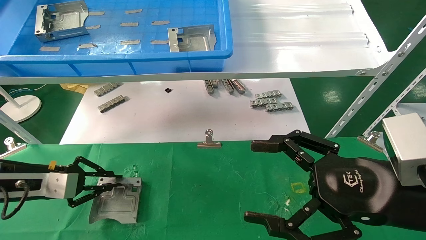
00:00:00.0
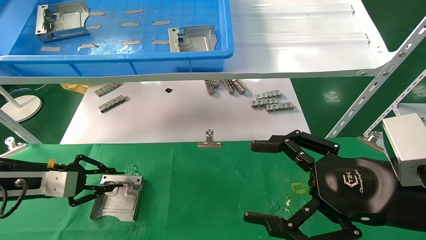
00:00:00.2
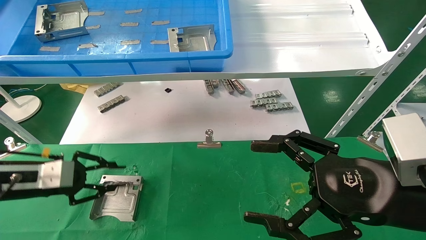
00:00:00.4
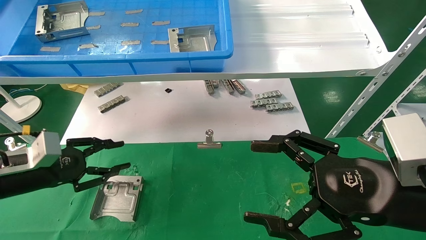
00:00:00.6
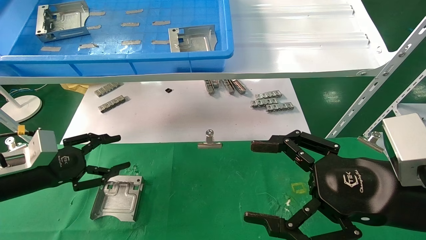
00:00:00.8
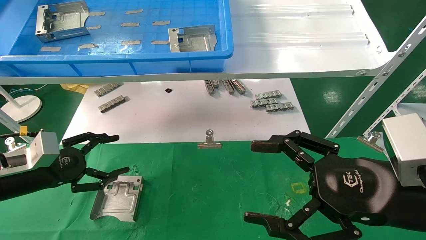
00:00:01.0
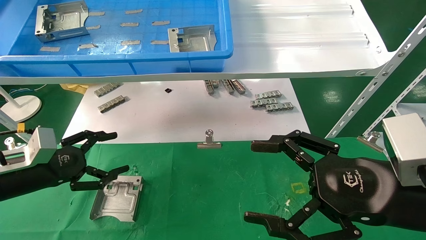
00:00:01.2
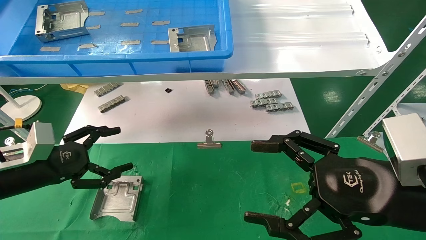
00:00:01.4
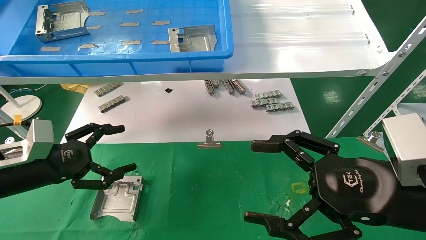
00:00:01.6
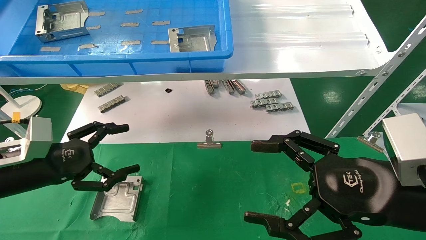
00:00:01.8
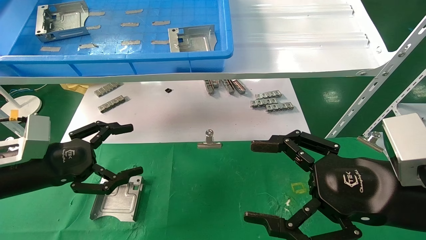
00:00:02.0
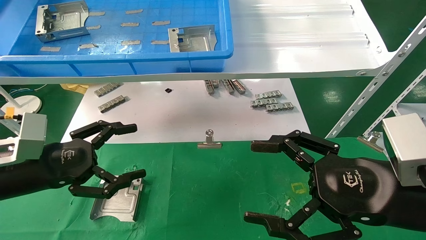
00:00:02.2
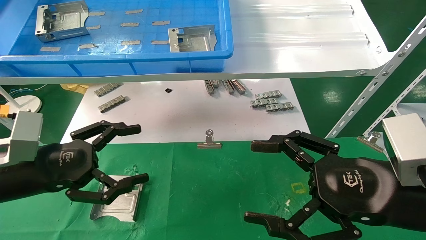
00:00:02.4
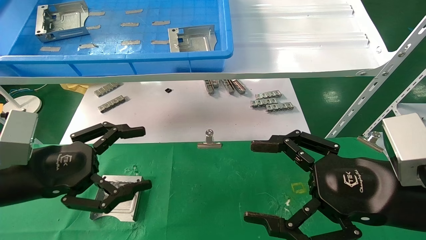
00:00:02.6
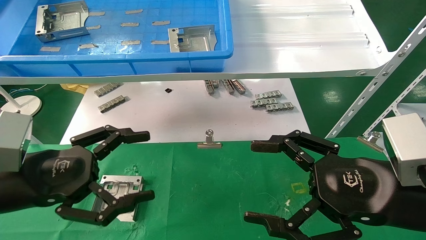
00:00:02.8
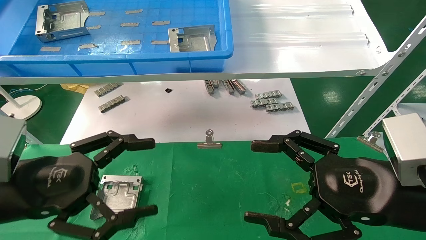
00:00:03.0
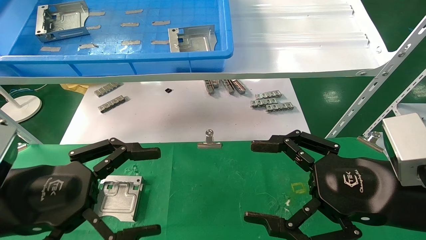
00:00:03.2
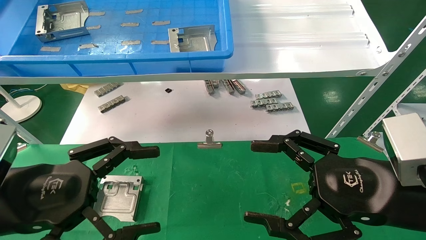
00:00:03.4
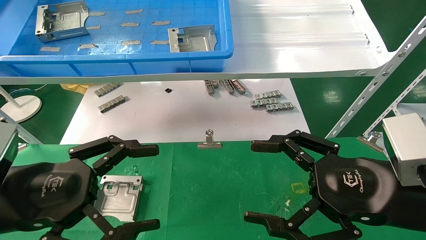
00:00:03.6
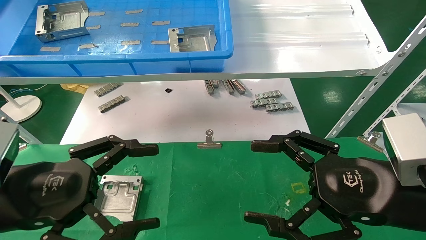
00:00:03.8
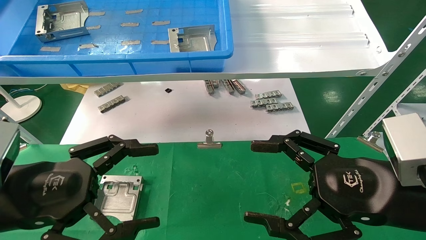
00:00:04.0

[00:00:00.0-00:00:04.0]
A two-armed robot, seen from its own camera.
Task of the whole recording: use the mechanical arm to pick up the parts and place them on the table.
00:00:00.0 to 00:00:01.4: The left gripper opens up.
00:00:01.4 to 00:00:02.6: The left gripper travels backward and to the right by approximately 10 cm.
00:00:02.6 to 00:00:04.0: The left gripper travels backward by approximately 5 cm.

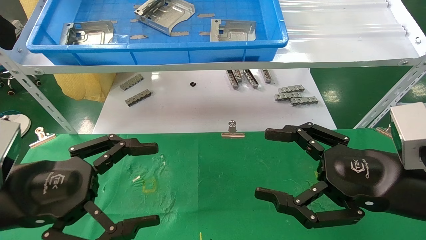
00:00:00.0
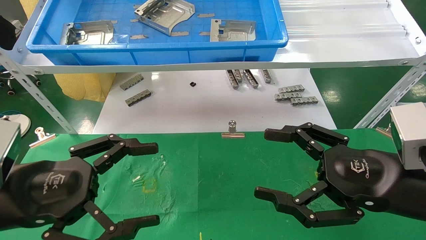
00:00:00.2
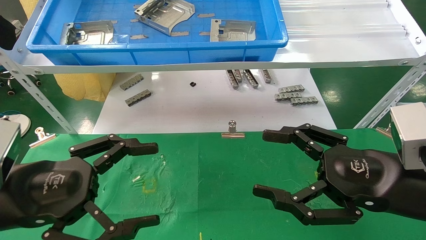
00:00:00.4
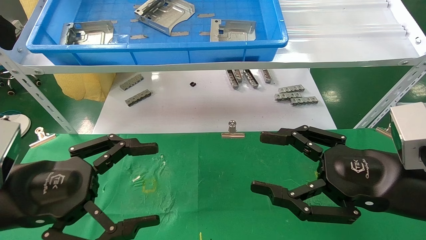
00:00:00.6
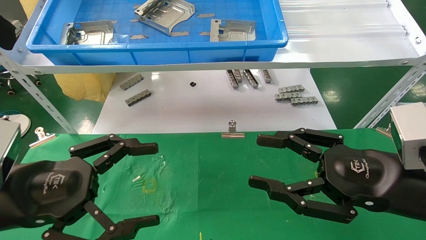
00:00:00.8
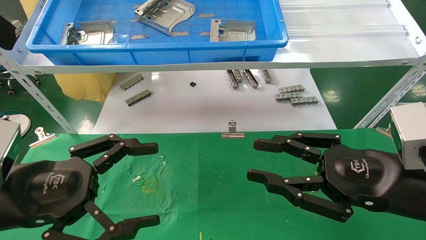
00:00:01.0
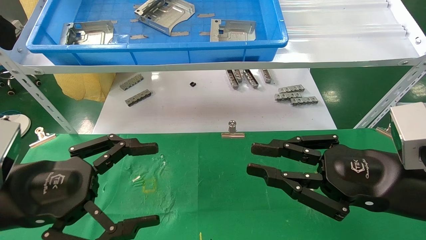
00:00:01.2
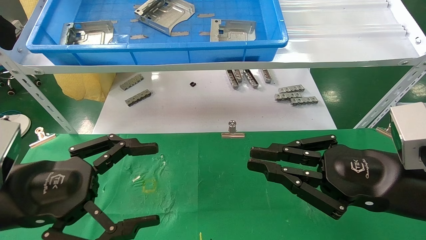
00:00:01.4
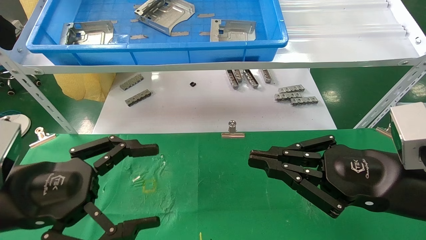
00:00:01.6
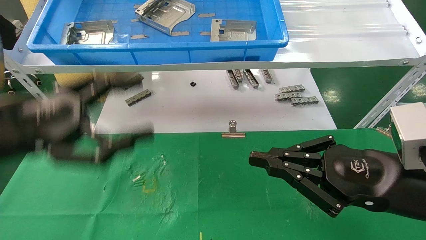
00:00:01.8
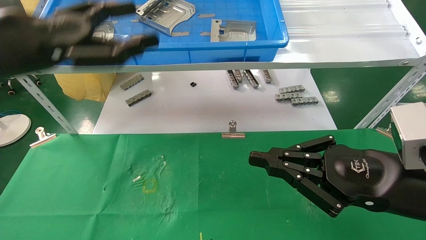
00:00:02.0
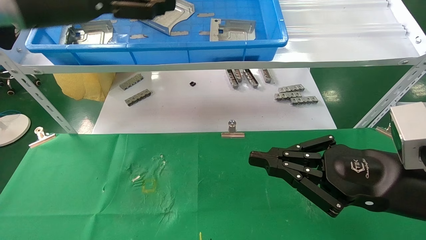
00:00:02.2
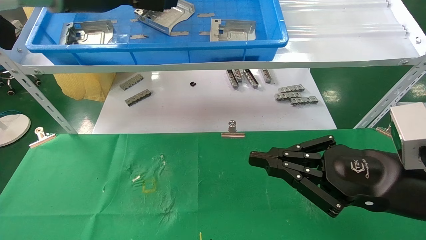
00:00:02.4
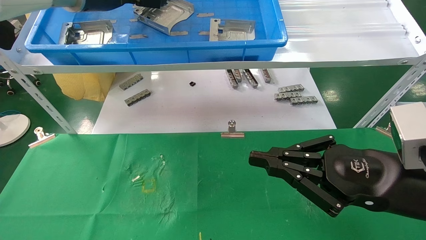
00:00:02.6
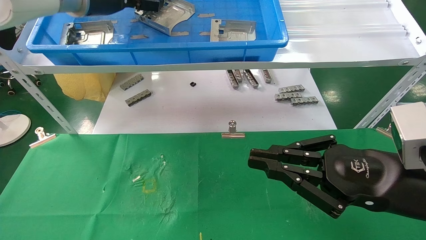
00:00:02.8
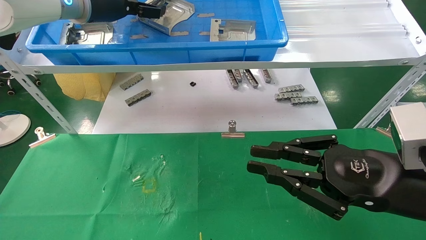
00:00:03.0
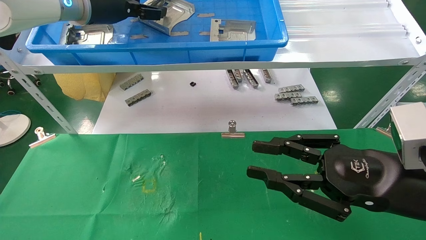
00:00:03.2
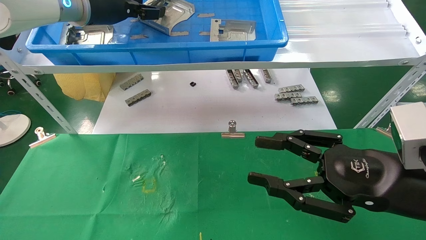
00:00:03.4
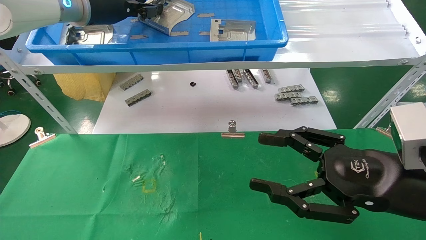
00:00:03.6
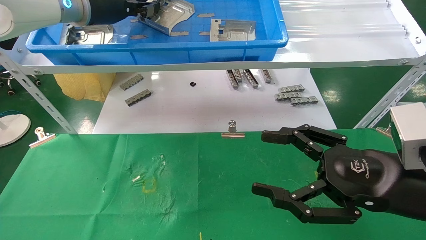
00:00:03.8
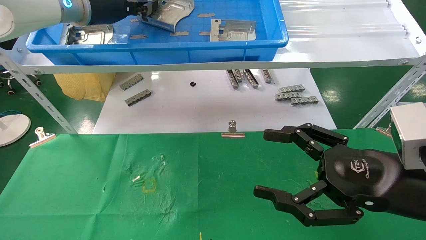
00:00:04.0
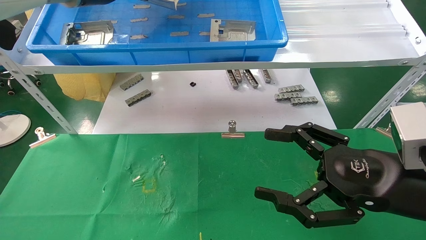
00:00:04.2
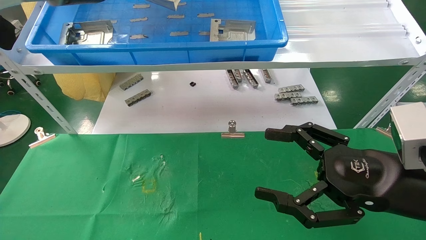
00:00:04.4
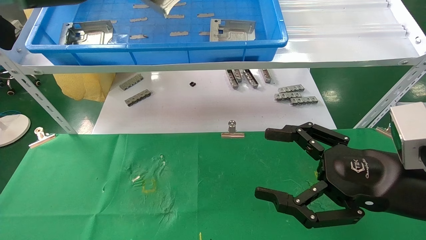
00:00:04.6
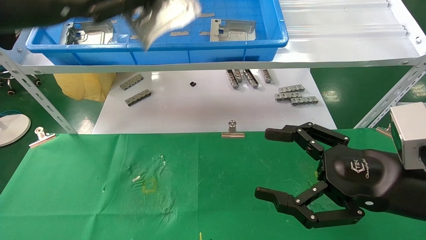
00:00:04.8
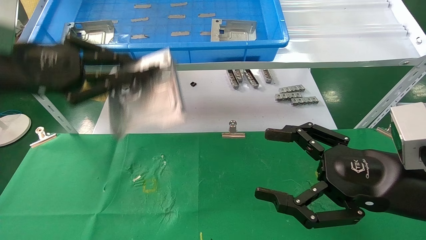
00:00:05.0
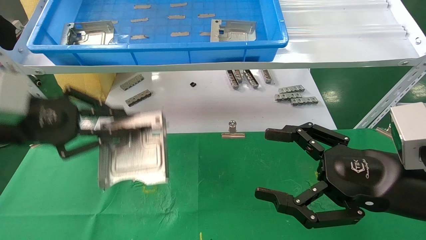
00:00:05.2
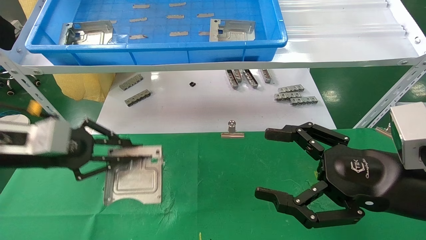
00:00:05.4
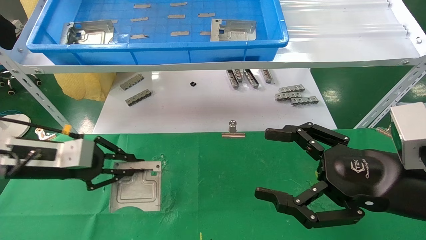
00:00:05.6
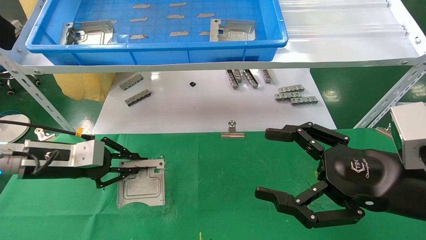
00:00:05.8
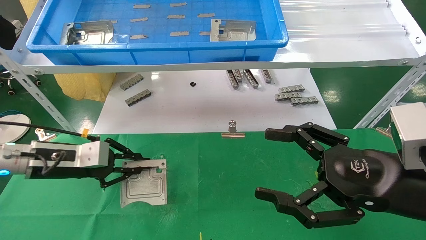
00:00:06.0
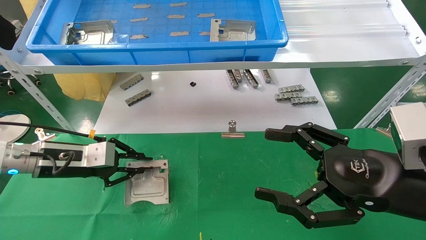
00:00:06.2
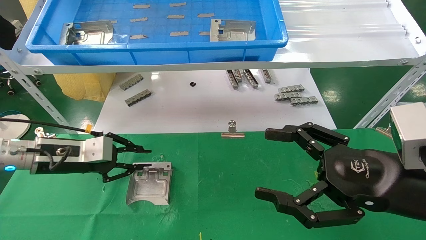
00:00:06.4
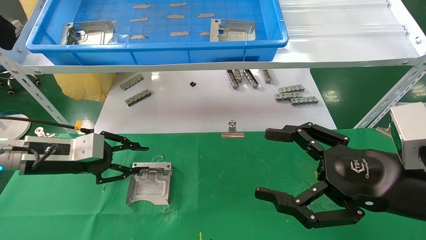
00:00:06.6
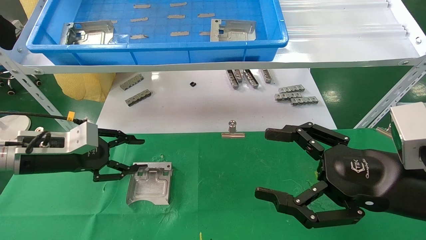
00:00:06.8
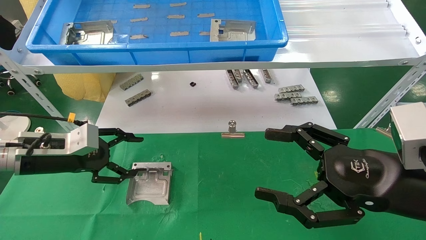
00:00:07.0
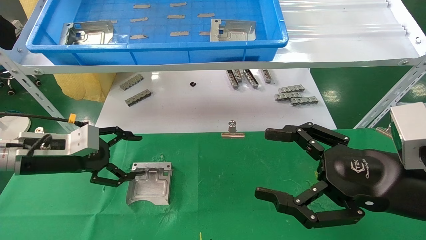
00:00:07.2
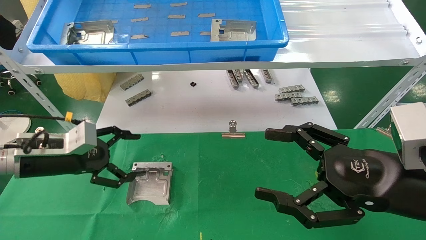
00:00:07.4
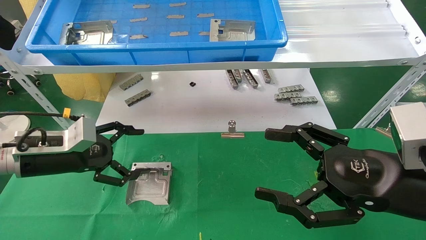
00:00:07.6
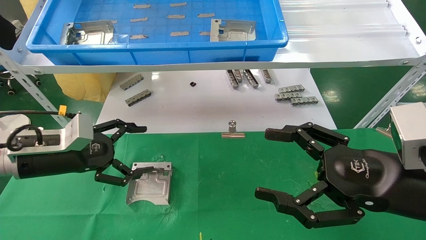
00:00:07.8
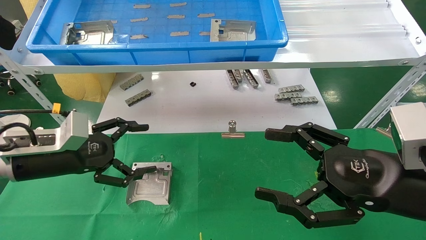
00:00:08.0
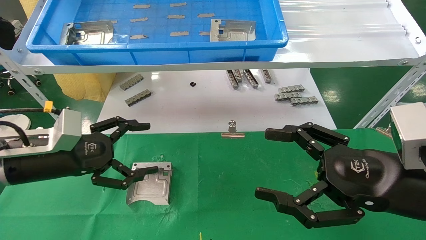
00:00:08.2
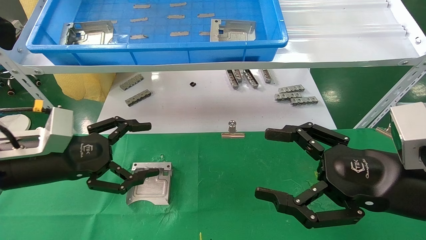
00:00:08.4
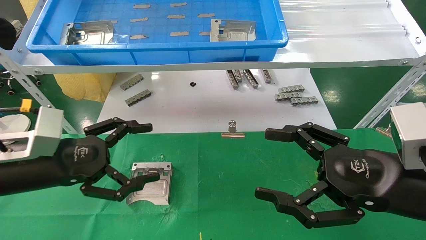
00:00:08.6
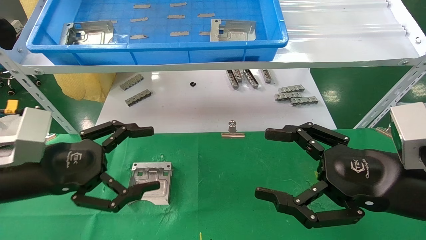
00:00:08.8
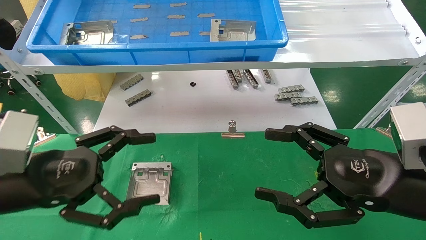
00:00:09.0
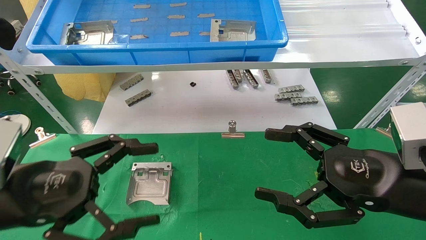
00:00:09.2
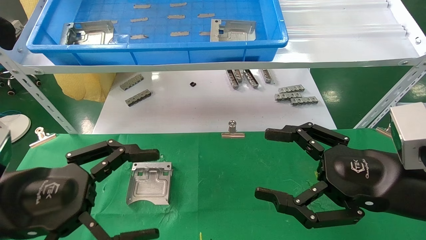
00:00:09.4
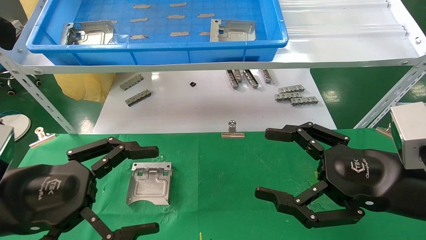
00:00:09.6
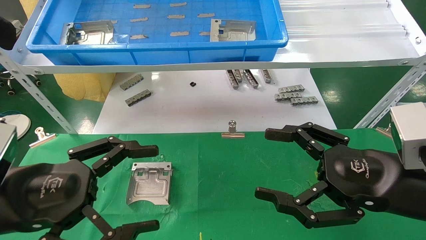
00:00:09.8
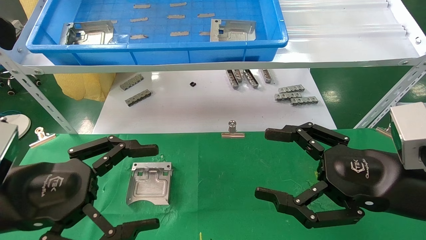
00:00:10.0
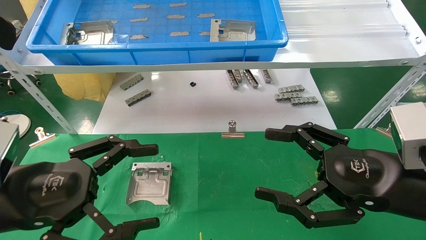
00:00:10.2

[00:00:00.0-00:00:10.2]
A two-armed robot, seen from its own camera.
Task of the whole recording: use the mechanical arm to pick up the parts and place them on the table.
Step, 00:00:01.8 to 00:00:03.8: Pick up the hard drive bracket from the feeding area.
Step, 00:00:04.0 to 00:00:06.8: Place the hard drive bracket into the box.
00:00:00.0 to 00:00:01.4: The right gripper closes its fingers.
00:00:01.4 to 00:00:03.0: The left gripper shifts approximately 35 cm forward and upward.
00:00:03.0 to 00:00:04.4: The left gripper moves approximately 5 cm, and closes its fingers, while the right gripper opens up.
00:00:04.4 to 00:00:05.8: The left gripper heads downward, covering roughly 30 cm.
00:00:05.8 to 00:00:07.2: The left gripper opens up.
00:00:07.2 to 00:00:08.8: The left gripper is displaced backward by some 10 cm.
00:00:08.8 to 00:00:10.2: The left gripper travels backward by some 5 cm.
